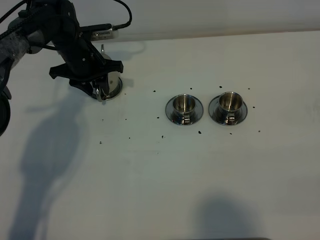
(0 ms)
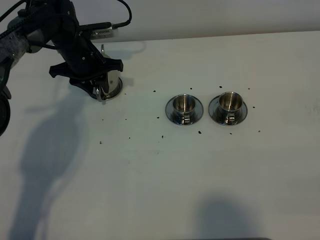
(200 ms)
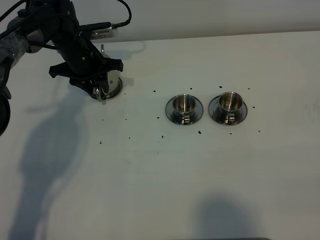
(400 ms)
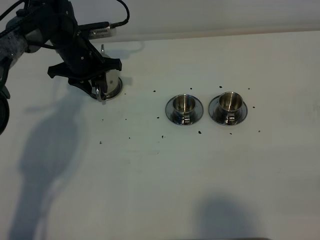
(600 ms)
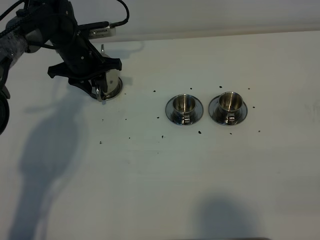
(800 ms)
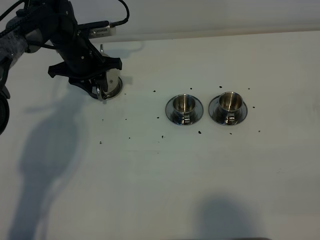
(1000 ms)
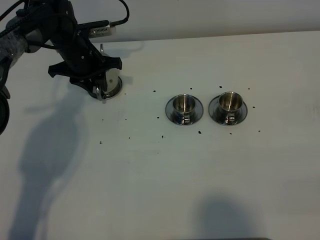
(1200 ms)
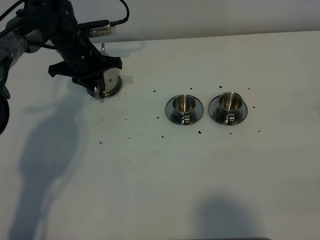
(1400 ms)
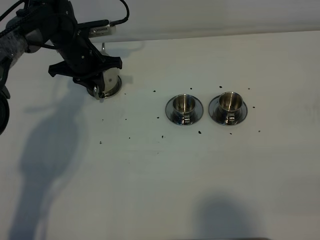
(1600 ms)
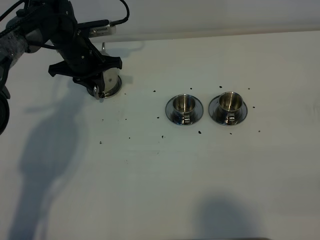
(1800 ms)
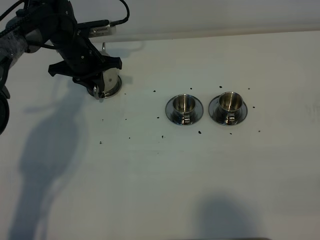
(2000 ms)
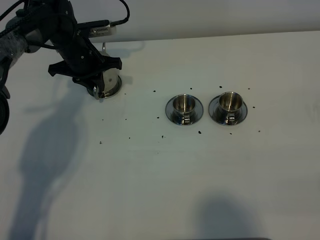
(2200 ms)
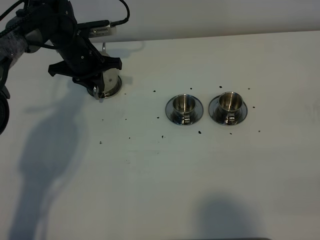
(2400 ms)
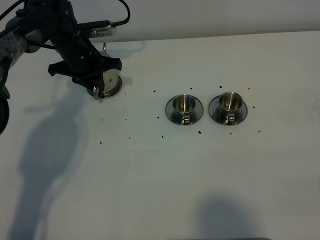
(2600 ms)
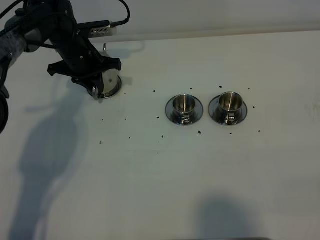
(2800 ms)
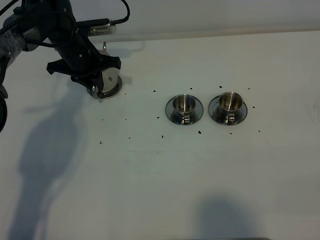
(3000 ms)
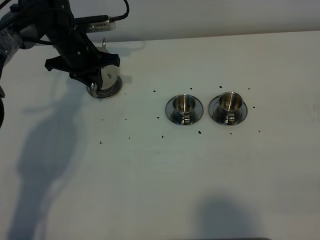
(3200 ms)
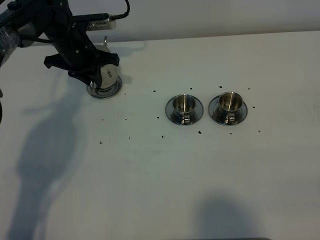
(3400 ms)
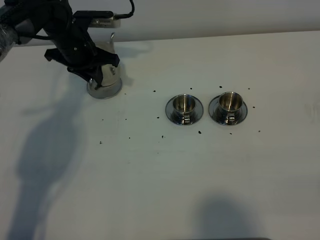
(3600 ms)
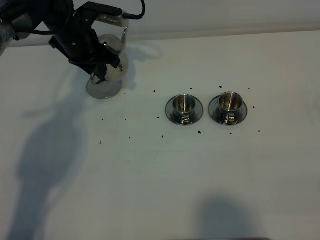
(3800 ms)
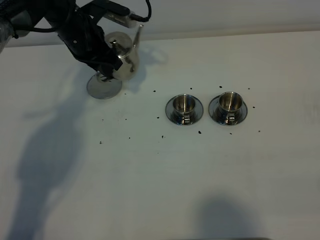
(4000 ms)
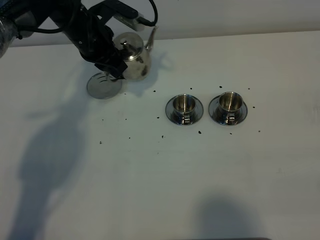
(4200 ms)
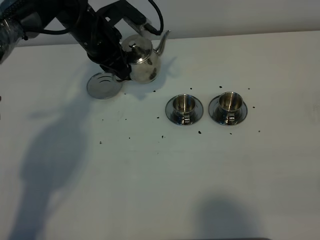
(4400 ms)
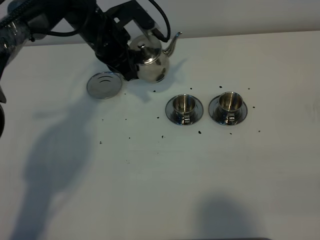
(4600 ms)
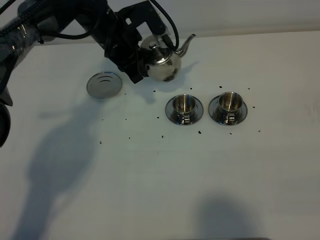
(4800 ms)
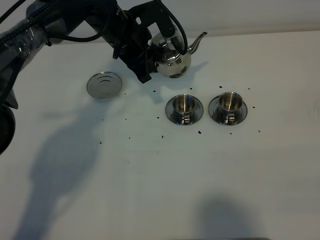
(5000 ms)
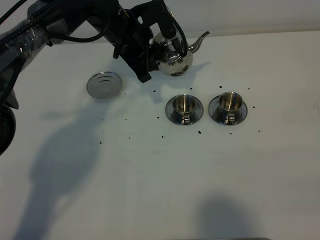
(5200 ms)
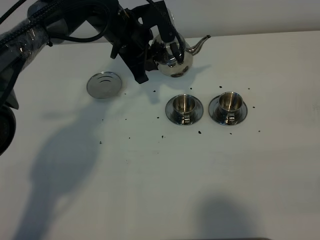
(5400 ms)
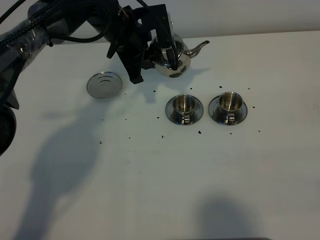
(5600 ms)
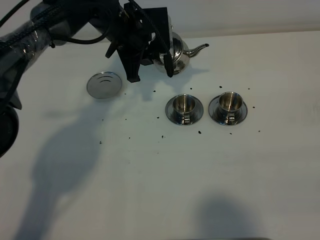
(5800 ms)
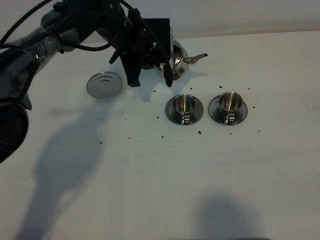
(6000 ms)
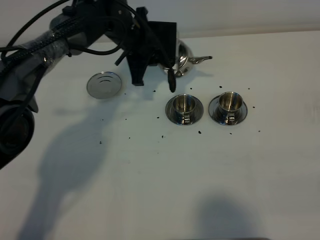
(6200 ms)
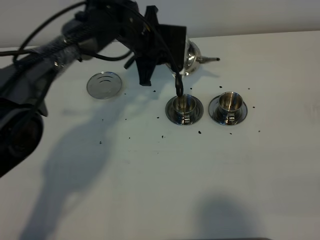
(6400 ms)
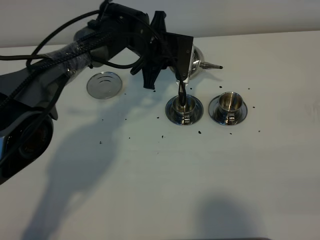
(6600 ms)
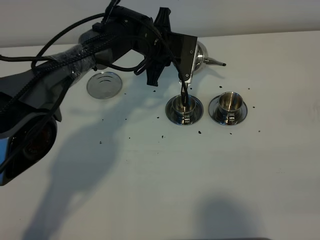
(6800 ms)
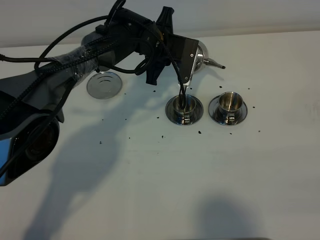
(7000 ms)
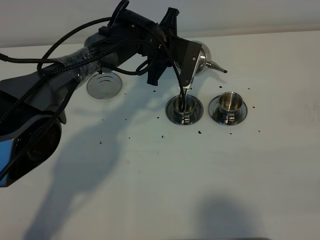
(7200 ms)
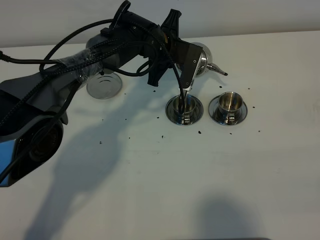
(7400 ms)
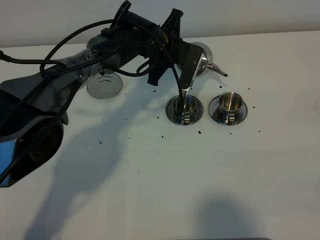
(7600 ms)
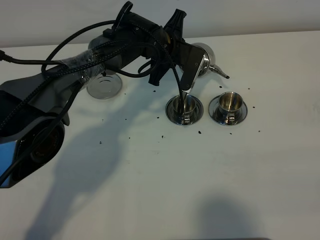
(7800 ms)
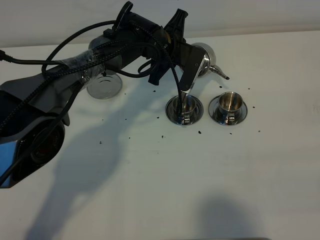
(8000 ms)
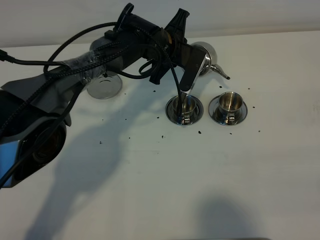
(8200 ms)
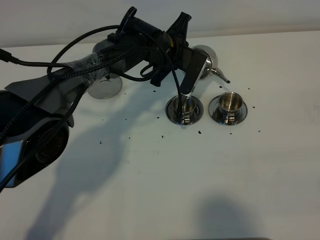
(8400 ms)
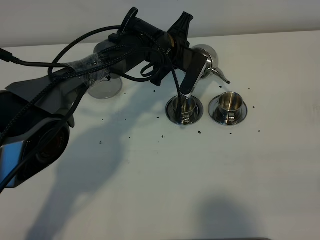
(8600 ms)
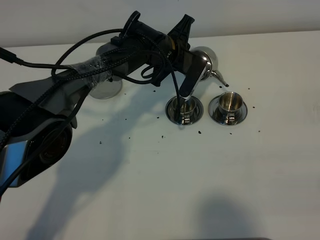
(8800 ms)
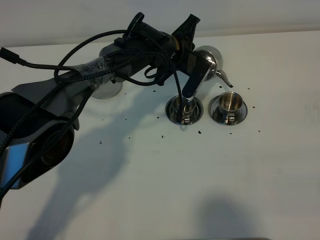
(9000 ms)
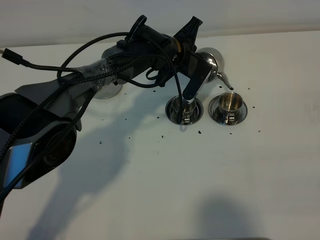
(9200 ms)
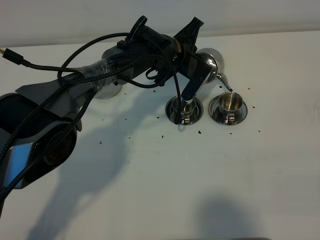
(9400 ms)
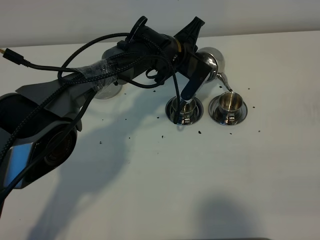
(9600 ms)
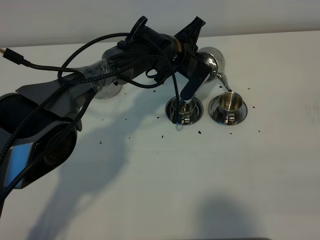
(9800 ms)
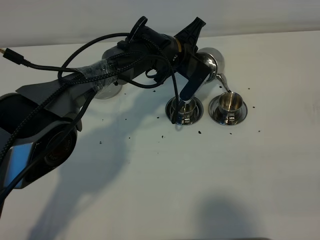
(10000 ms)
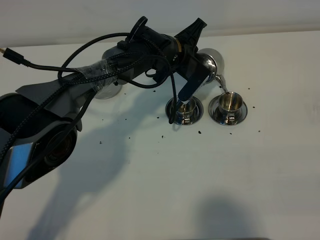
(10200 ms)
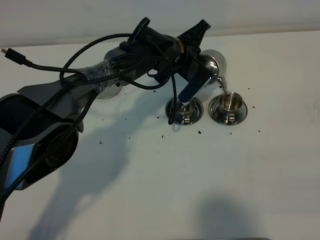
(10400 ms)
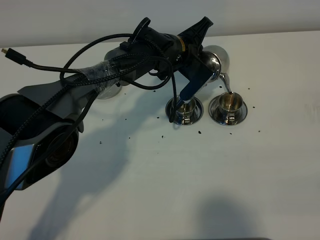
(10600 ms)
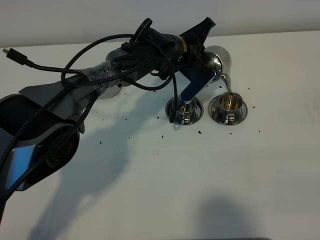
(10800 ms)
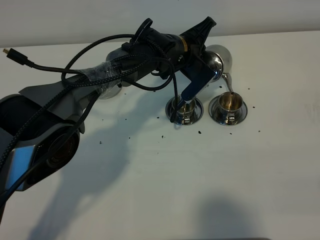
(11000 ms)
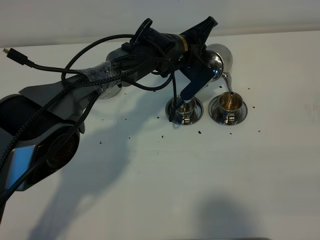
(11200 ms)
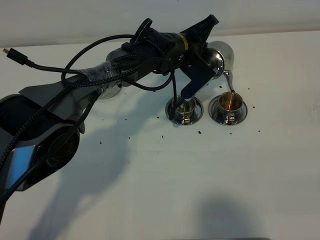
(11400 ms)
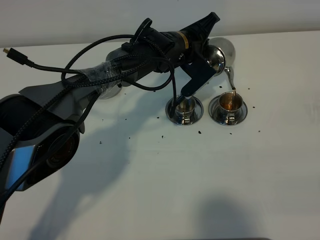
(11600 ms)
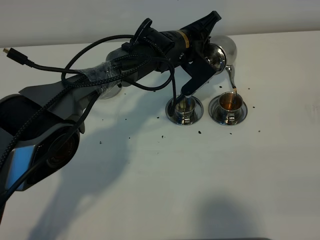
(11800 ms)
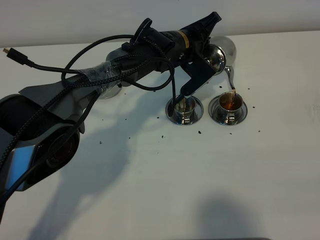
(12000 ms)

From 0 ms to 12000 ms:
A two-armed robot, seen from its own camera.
Task of the whole recording: grasp the stainless steel teapot and pour the tea into the two stainless steel teacups one by one, put the stainless steel teapot back in its original place.
Step, from 0 ms to 3200 ms: Pick up the teapot with the left gripper.
From 0 ms to 1600 ms: The left gripper closes its fingers.
From 1600 ms to 3000 ms: Both grippers stay about where they are.
From 3000 ms to 4400 ms: The left gripper is displaced upward and to the right by about 10 cm.
From 4400 ms to 6000 ms: The left gripper shifts about 5 cm to the right.
From 6000 ms to 7600 ms: The left gripper moves to the right, about 5 cm.
From 7600 ms to 9000 ms: There are only small adjustments of the grippers.
From 9000 ms to 10400 ms: There are only small adjustments of the grippers.
From 10400 ms to 12000 ms: The grippers move only a little.

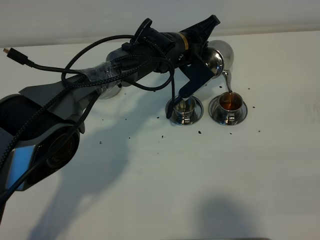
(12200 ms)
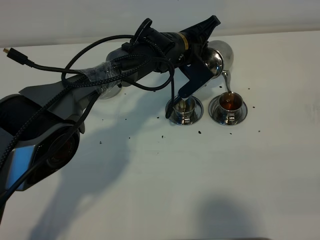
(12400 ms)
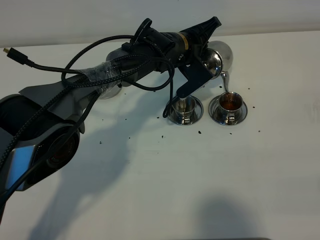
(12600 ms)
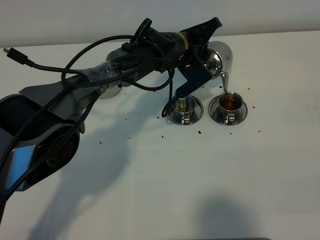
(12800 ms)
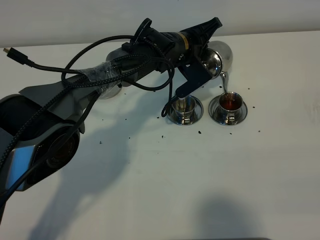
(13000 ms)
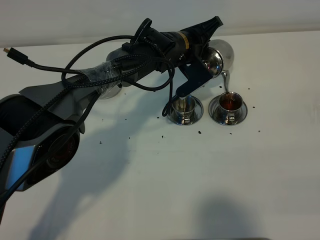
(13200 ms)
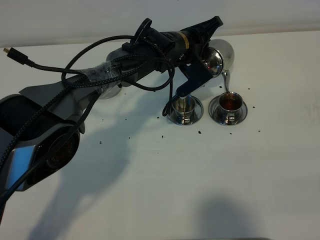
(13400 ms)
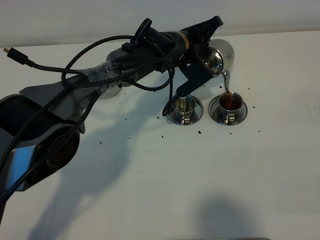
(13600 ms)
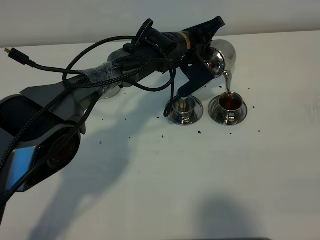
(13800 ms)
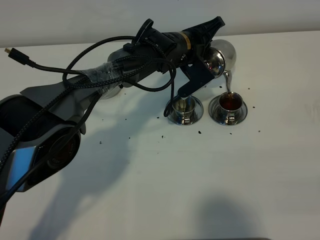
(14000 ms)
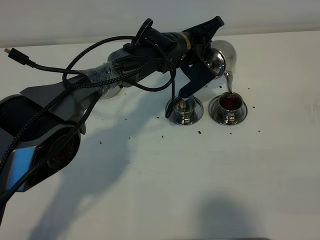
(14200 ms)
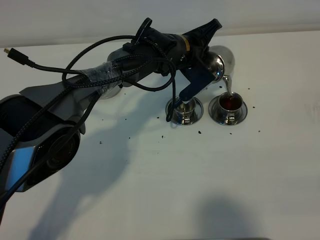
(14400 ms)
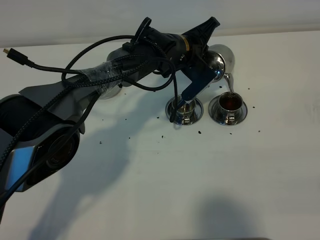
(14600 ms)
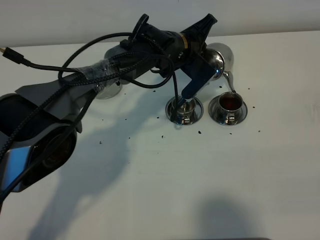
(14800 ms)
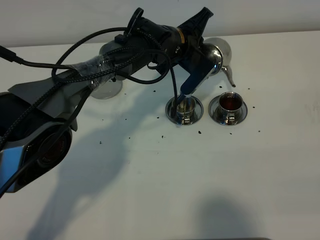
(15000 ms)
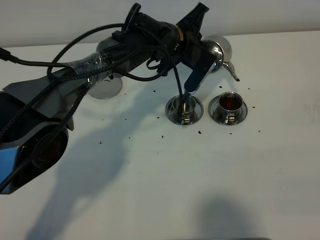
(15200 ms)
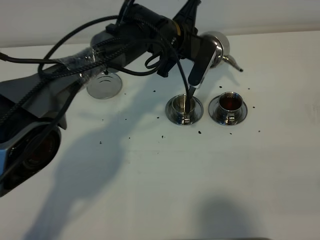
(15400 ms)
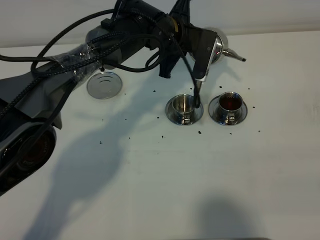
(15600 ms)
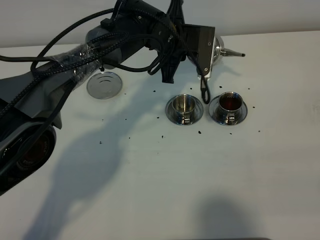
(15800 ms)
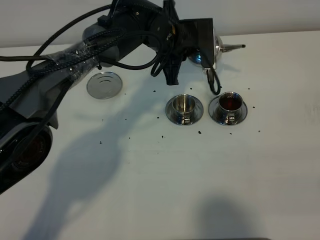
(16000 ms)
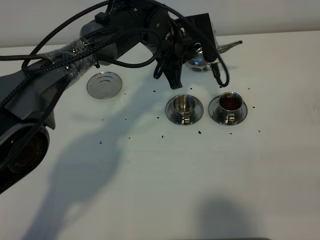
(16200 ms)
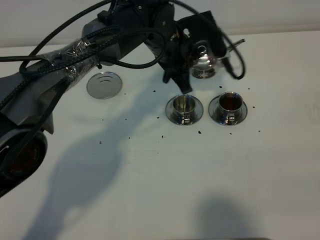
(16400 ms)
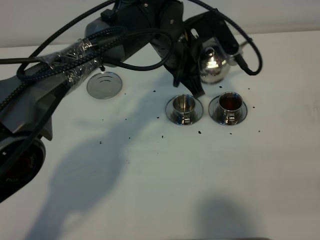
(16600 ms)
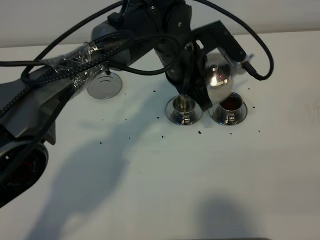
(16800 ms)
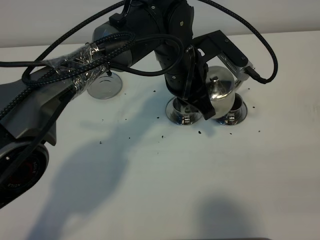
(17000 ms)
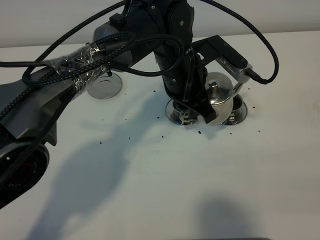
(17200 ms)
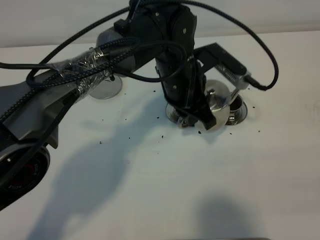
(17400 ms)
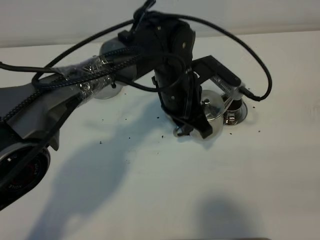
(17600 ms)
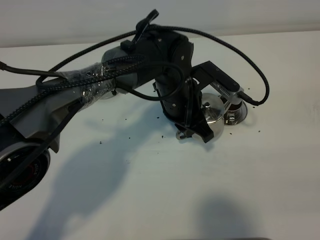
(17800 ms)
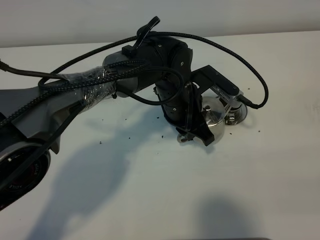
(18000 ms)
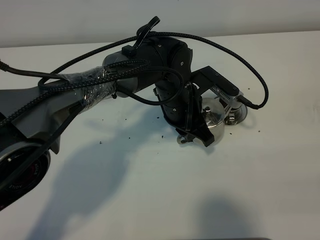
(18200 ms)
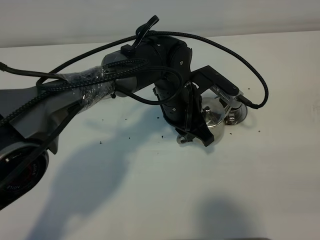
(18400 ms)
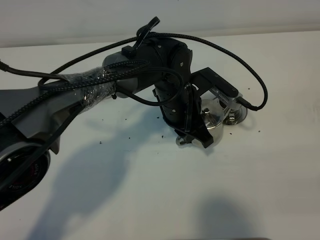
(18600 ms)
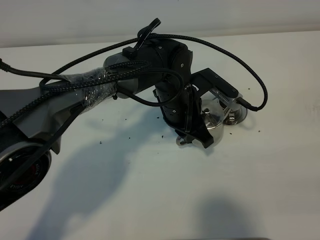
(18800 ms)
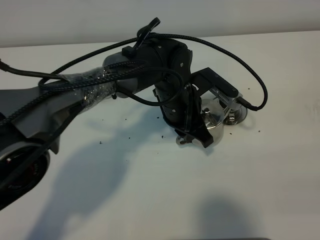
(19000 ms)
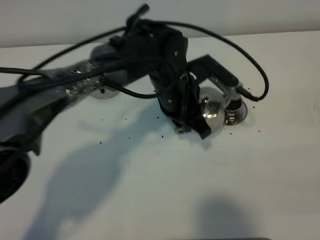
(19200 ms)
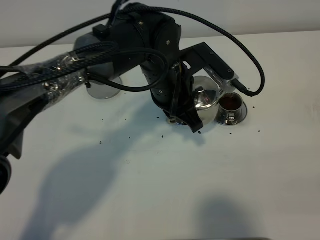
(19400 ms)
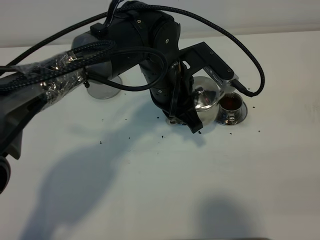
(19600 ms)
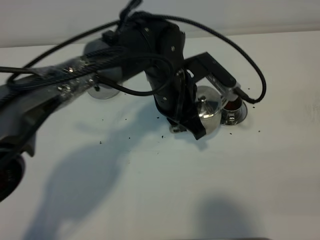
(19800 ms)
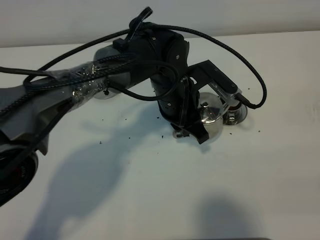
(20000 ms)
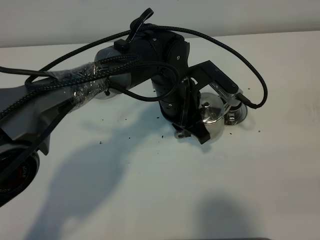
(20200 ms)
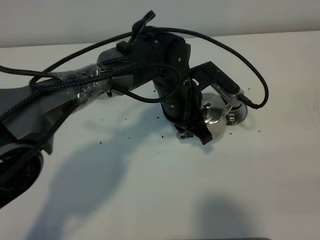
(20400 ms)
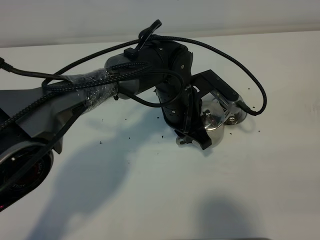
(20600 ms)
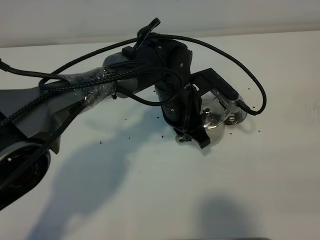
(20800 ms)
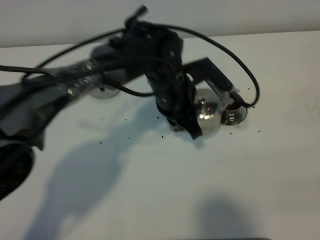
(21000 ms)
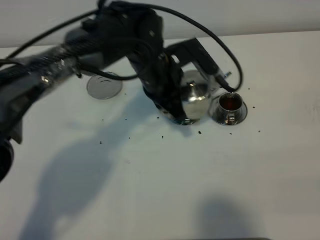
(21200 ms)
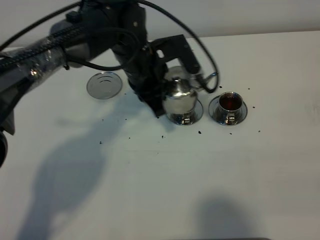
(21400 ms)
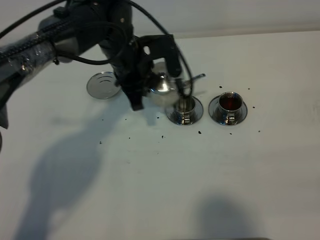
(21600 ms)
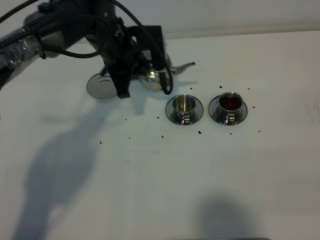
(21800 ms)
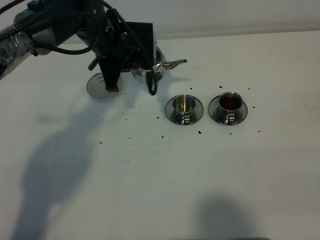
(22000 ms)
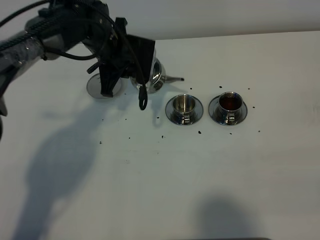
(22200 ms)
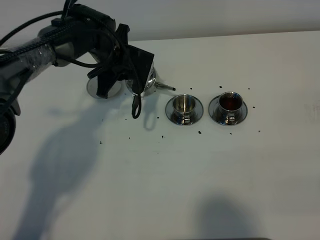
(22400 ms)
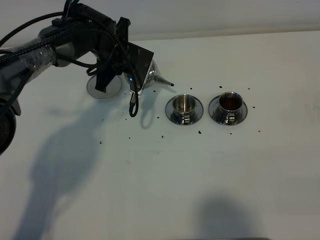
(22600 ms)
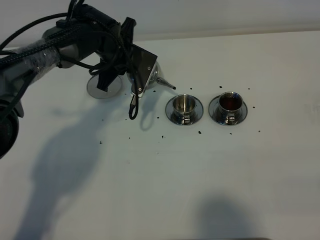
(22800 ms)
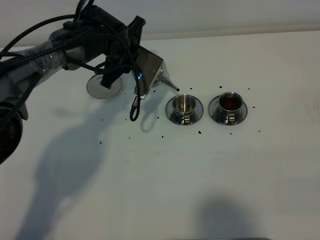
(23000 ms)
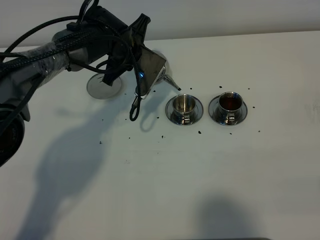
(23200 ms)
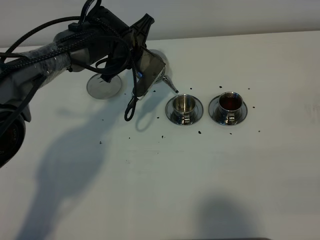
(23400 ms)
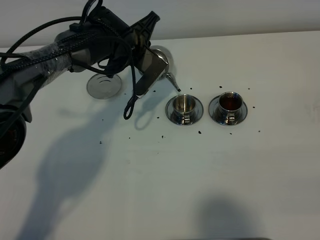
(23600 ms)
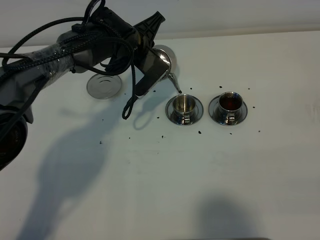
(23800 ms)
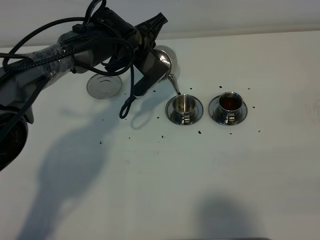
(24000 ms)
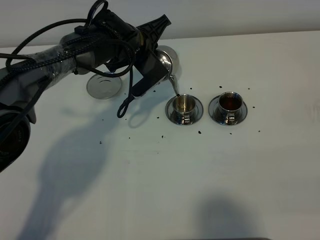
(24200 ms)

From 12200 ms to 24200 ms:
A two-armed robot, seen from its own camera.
Task of the whole recording: grasp the stainless steel teapot and pour the tea into the two stainless steel teacups one by one, put the stainless steel teapot back in its original place.
From 12200 ms to 13800 ms: The grippers move only a little.
From 15200 ms to 16600 ms: The left gripper goes about 5 cm backward.
From 16600 ms to 18200 ms: The left gripper heads downward, covering some 5 cm.
From 21200 ms to 22600 ms: The left gripper moves forward and to the left, approximately 15 cm.
From 22600 ms to 24200 ms: The left gripper heads to the right, covering approximately 5 cm.
